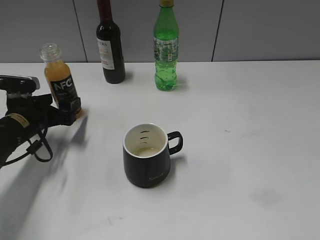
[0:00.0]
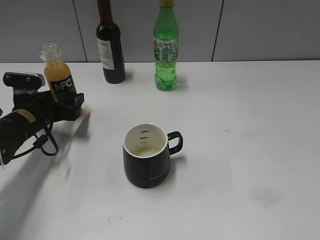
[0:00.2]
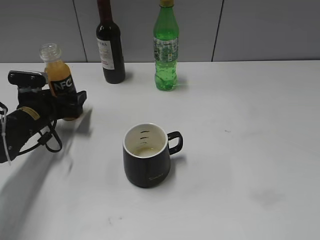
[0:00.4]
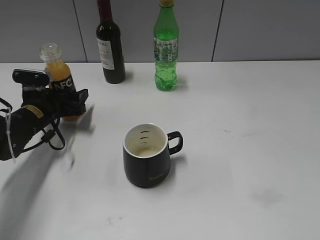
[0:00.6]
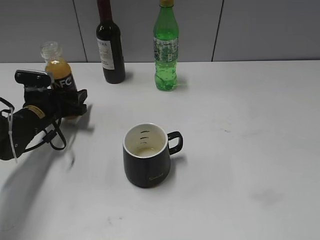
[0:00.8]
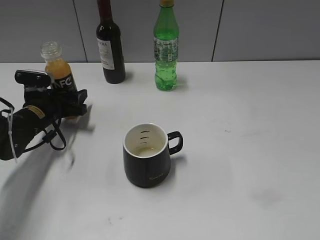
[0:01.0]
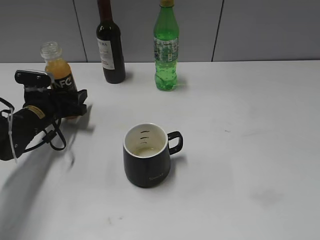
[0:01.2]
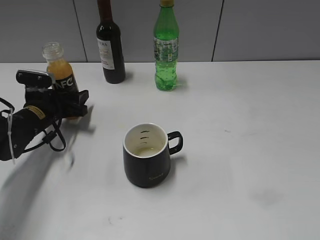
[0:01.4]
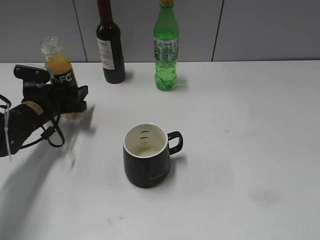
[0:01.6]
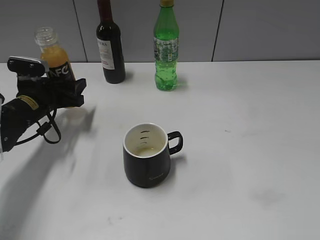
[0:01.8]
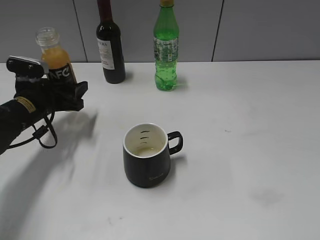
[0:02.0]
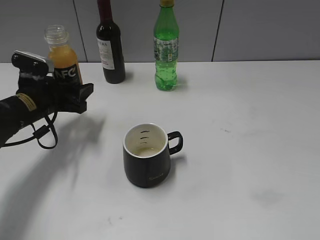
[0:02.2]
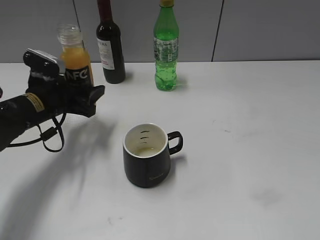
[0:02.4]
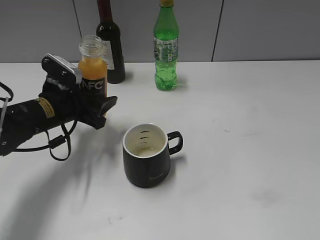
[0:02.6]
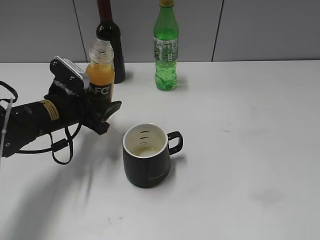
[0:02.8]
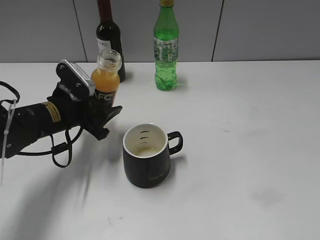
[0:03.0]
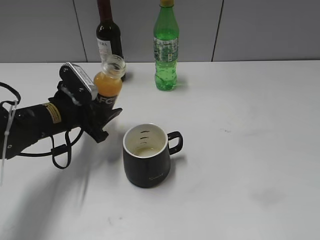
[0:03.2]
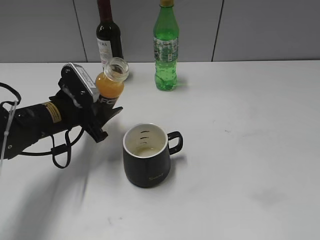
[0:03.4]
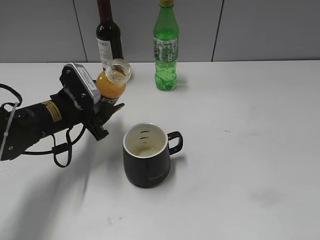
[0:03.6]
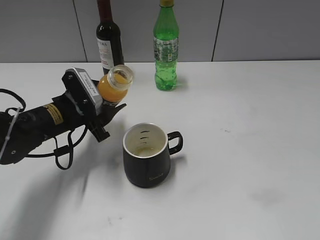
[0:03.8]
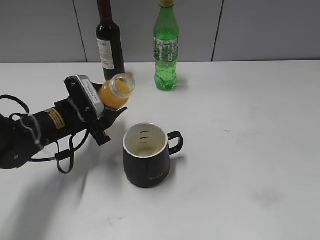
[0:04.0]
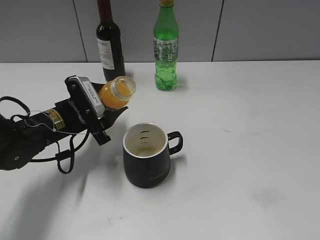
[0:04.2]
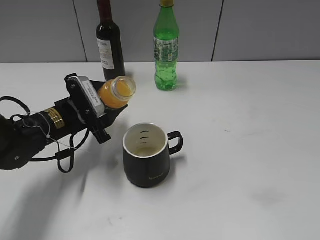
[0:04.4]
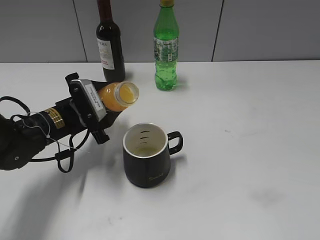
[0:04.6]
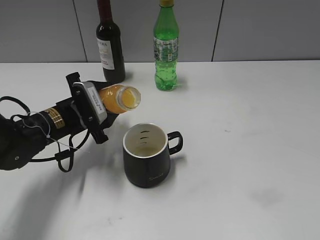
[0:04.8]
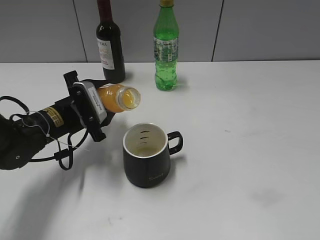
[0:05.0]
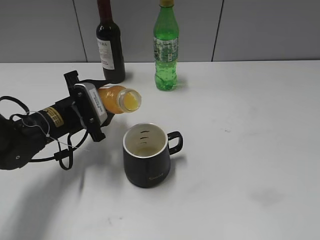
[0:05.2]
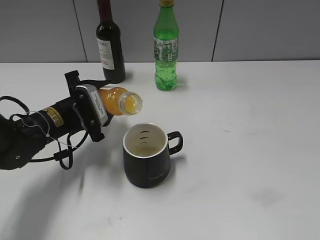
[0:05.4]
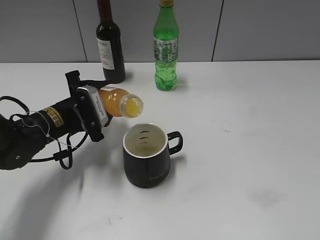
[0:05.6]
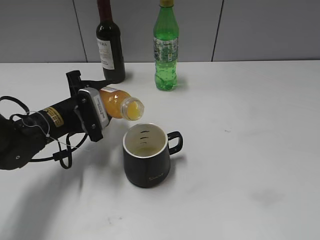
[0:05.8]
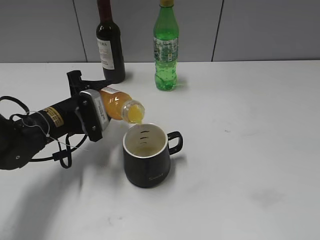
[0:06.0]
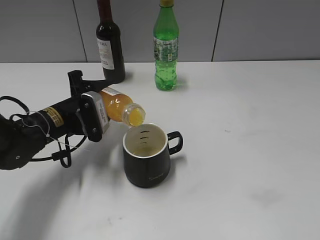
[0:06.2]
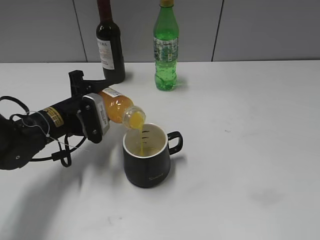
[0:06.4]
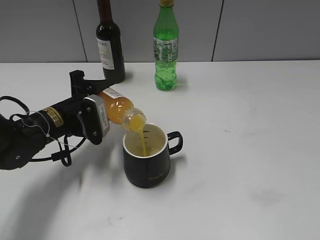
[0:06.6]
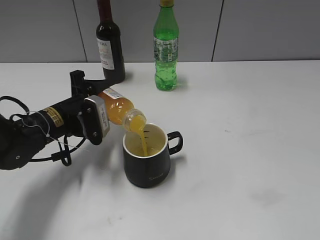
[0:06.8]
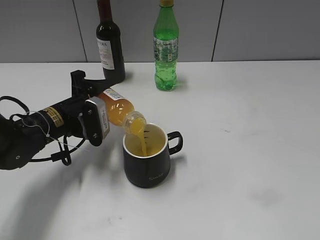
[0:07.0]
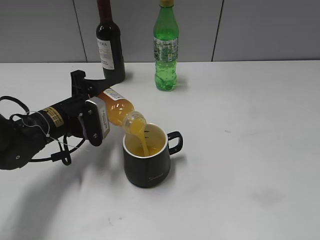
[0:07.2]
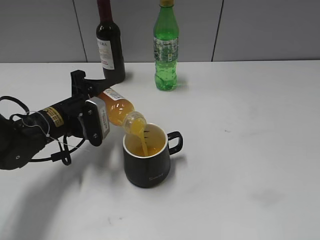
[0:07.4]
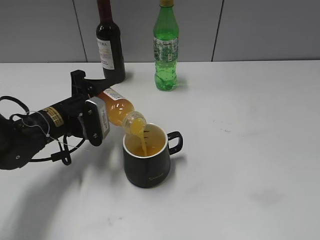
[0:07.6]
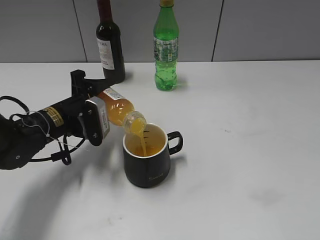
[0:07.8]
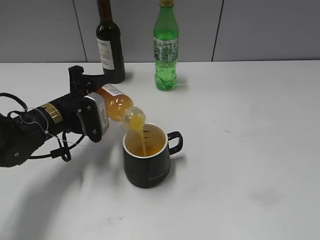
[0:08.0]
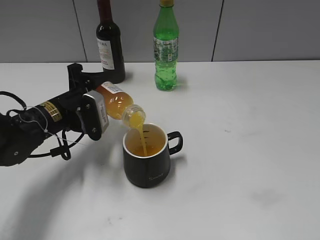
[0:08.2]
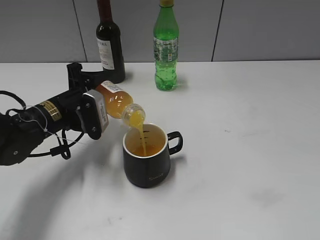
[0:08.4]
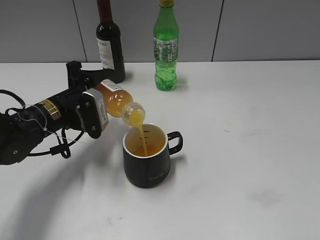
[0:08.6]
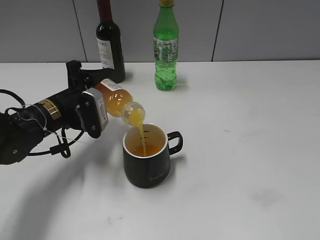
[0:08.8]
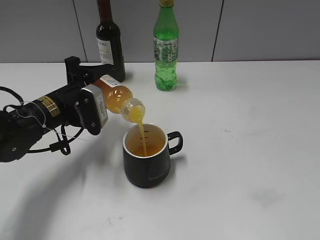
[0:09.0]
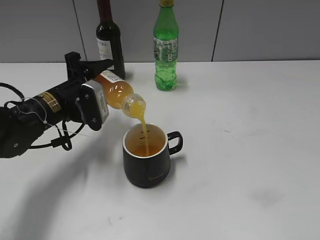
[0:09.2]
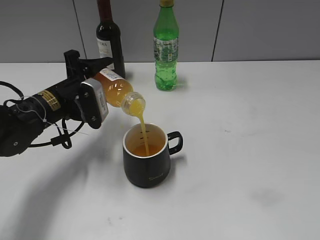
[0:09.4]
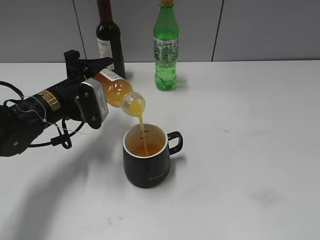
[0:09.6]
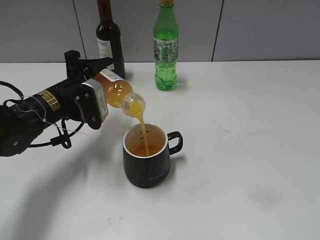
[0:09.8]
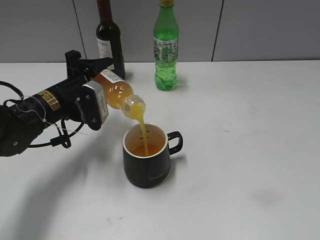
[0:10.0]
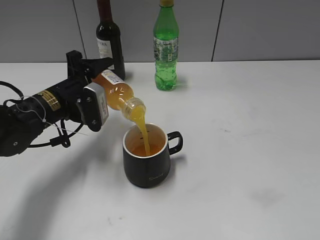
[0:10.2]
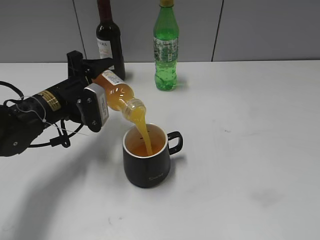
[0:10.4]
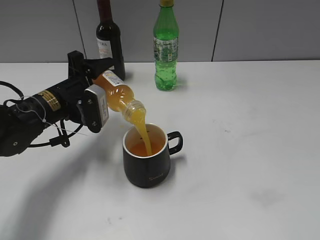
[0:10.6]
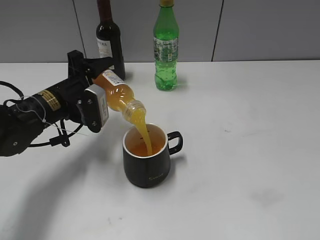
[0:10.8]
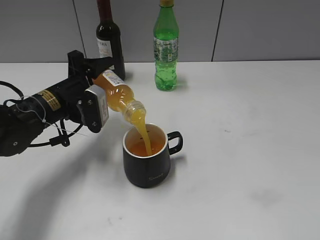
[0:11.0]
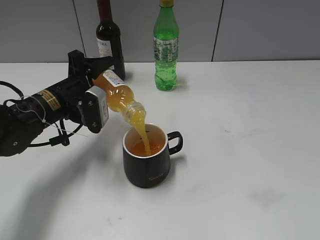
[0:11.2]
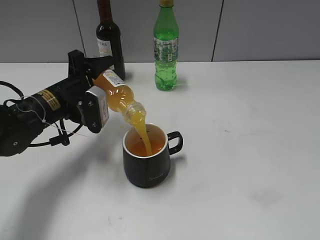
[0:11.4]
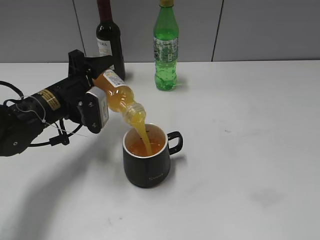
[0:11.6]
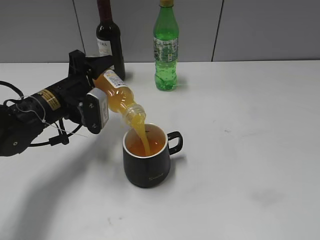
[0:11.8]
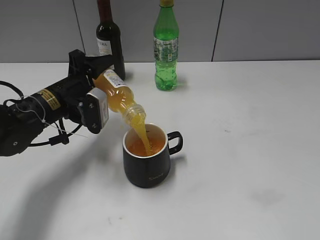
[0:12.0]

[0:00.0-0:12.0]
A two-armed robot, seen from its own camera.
0:00.0 to 0:01.6: The left gripper changes place by approximately 5 cm, and closes up.
0:01.6 to 0:03.0: The left gripper travels to the right and backward by about 10 cm.
0:06.0 to 0:10.4: The grippers stay close to where they were, moving slightly.
0:10.4 to 0:12.0: The grippers stay close to where they were, moving slightly.

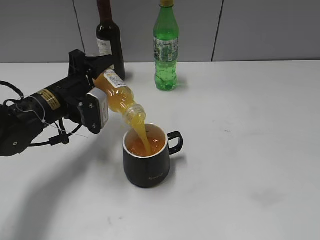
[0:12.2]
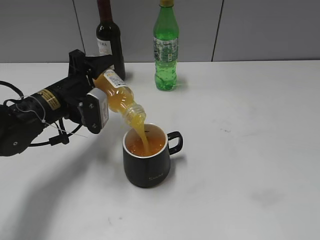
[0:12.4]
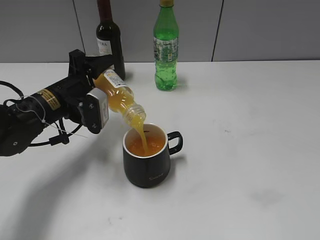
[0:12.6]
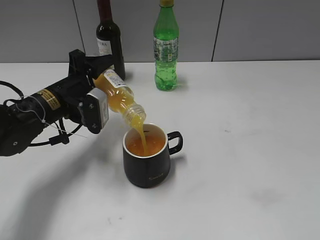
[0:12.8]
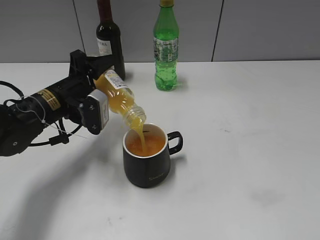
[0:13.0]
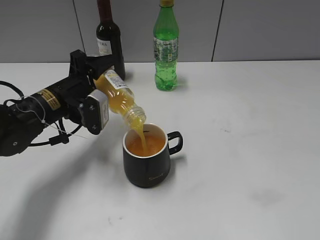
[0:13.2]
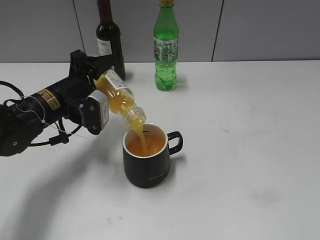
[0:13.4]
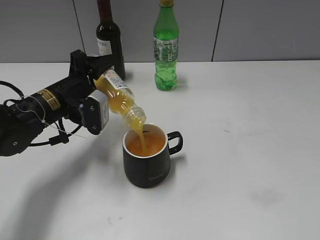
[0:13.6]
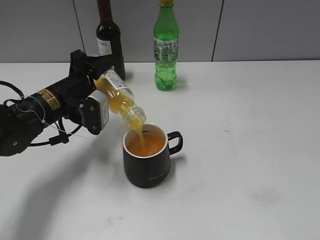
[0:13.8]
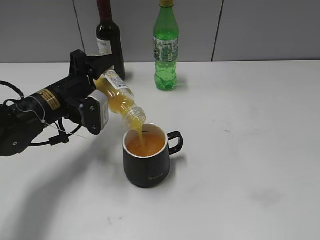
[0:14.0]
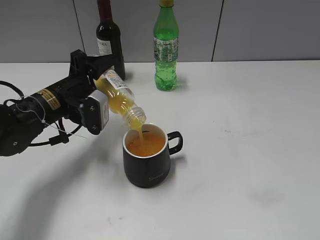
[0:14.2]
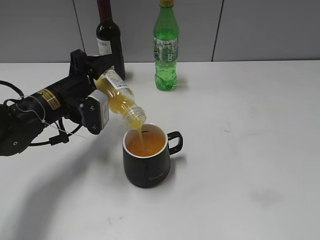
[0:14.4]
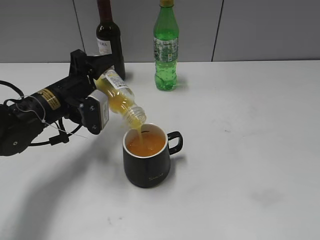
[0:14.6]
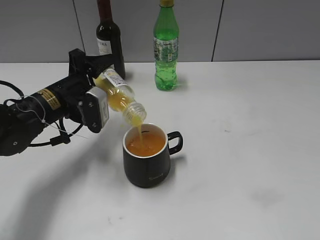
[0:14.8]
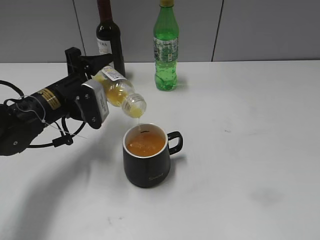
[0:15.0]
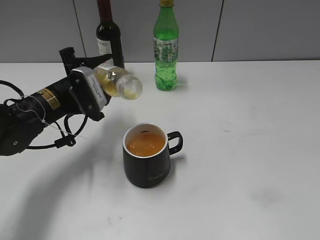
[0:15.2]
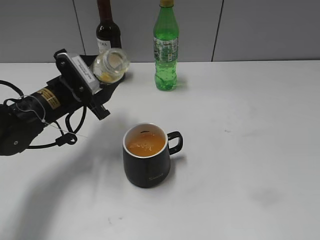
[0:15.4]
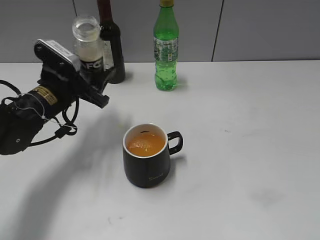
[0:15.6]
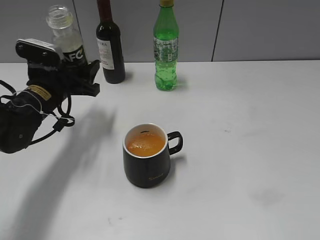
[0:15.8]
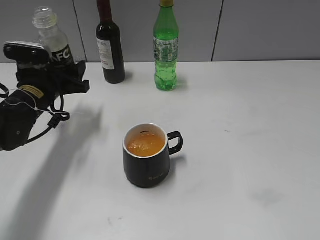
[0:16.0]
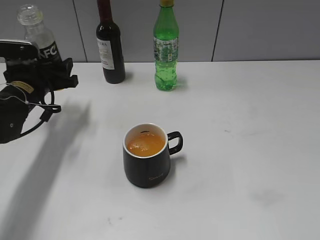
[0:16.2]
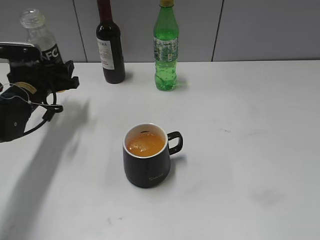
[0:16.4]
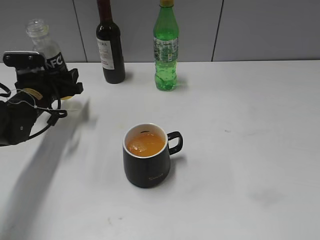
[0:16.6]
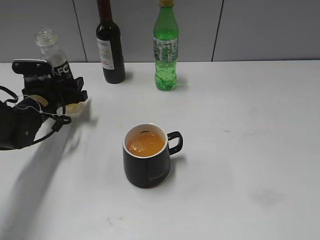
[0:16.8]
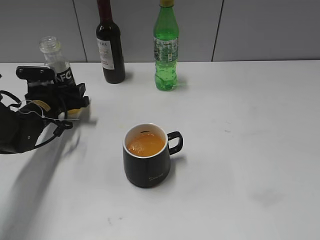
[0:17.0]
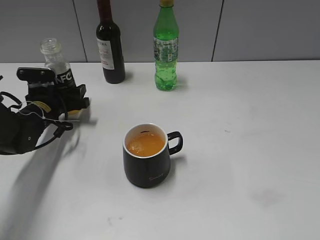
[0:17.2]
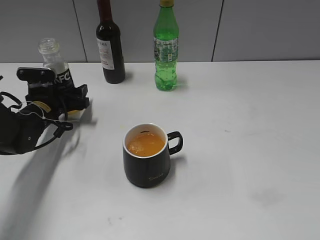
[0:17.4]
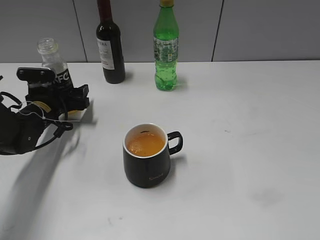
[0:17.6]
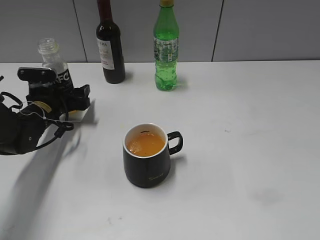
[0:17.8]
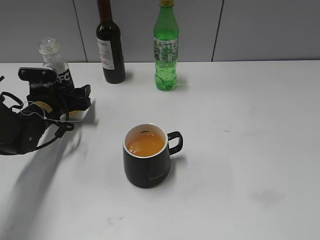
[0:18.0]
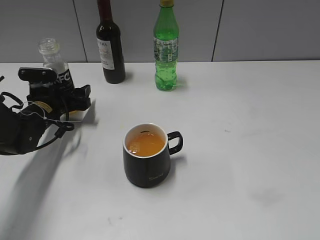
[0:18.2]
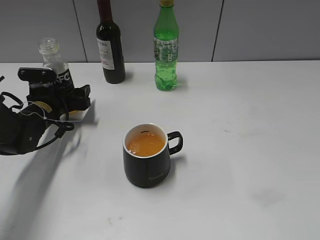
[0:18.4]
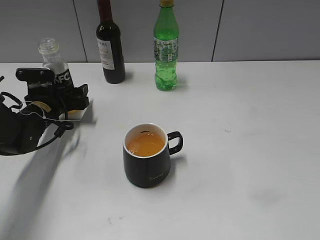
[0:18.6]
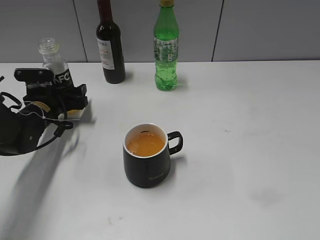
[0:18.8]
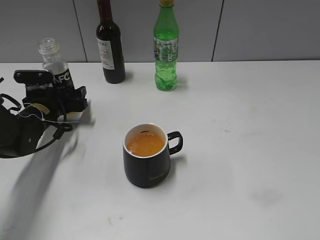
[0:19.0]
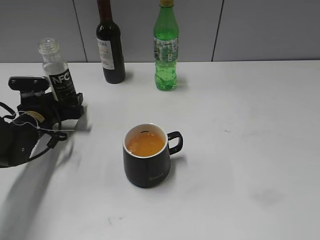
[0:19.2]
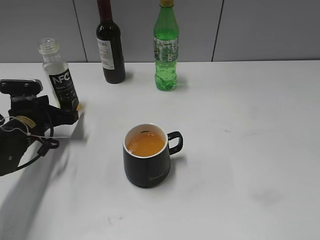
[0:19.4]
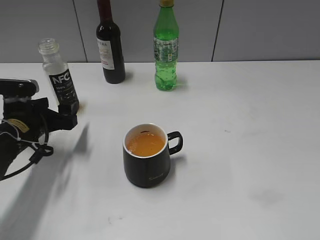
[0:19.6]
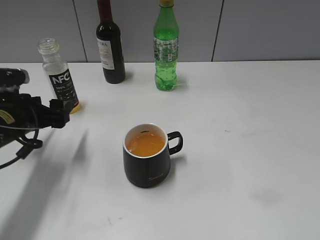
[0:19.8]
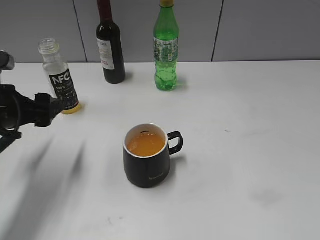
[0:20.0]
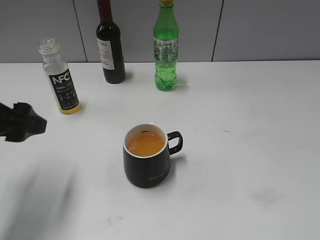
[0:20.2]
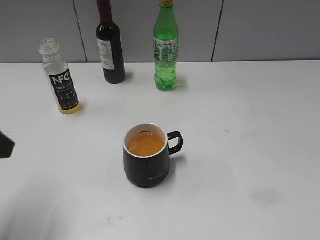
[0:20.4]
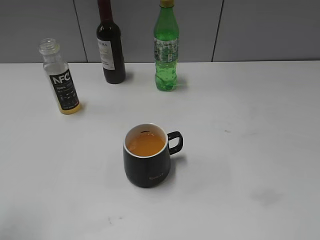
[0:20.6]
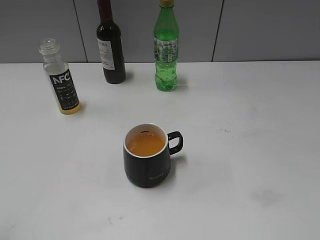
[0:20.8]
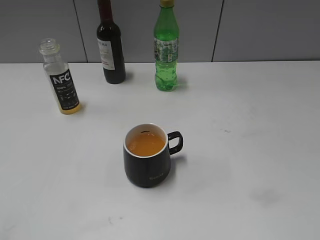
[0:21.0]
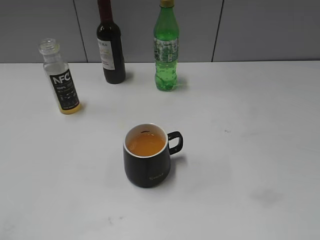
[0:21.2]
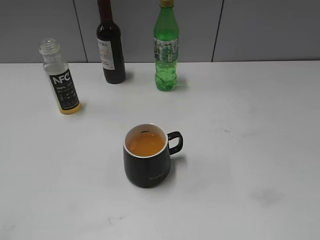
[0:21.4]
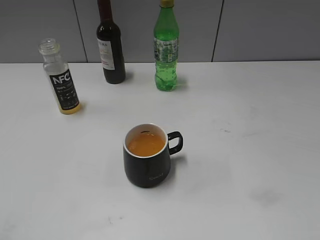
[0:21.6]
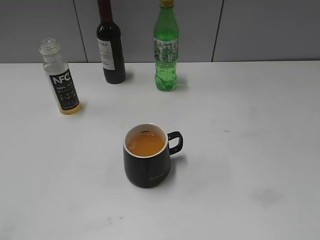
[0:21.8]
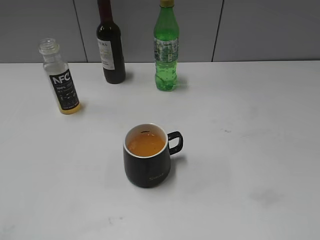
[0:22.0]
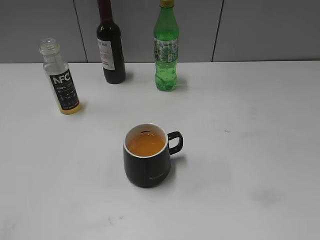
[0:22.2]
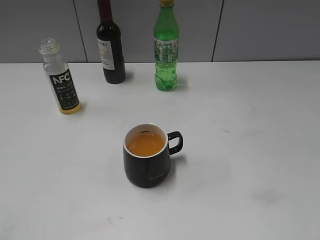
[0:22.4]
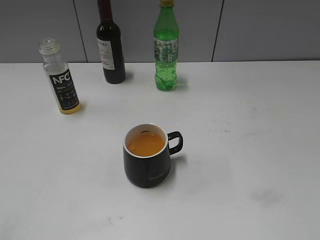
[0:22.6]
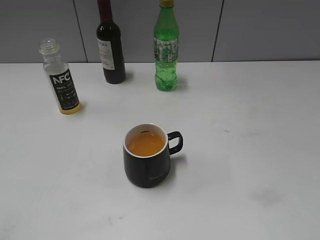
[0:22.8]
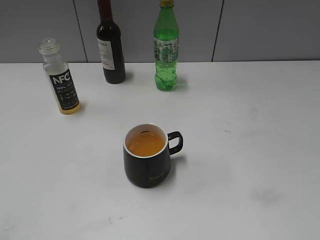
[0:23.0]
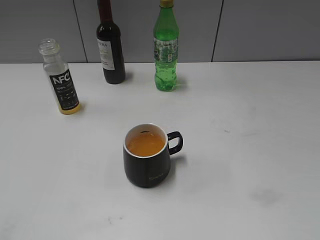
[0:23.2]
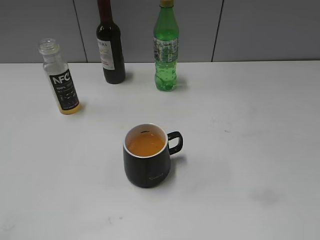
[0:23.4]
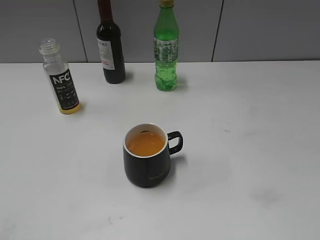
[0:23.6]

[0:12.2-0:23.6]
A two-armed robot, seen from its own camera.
Step, 0:12.2 to 0:15.0: Pour the orange juice from bottle to cup with left gripper.
Step, 0:15.4 to 0:18.6: Place the orange juice bottle on the table with left gripper.
0:12.2 to 0:13.6: Both grippers stay put.
0:13.6 to 0:15.0: There are only small adjustments of the grippers.
0:15.0 to 0:16.4: The left gripper goes about 5 cm to the left.
0:16.4 to 0:17.8: The left gripper is displaced downward by approximately 5 cm, and opens up.
0:17.8 to 0:19.4: There are only small adjustments of the grippers.
0:19.4 to 0:20.8: The left gripper heads backward and upward, covering about 35 cm.
